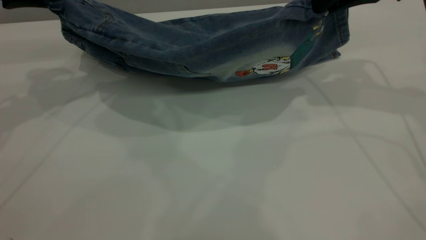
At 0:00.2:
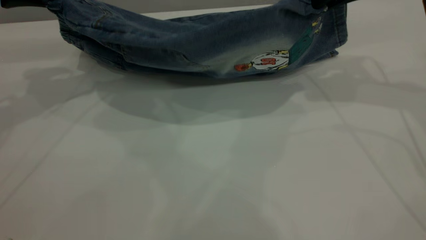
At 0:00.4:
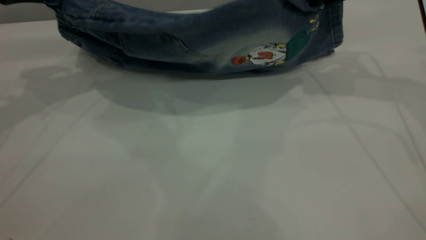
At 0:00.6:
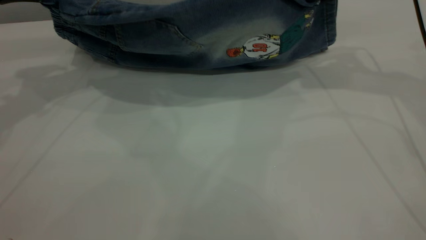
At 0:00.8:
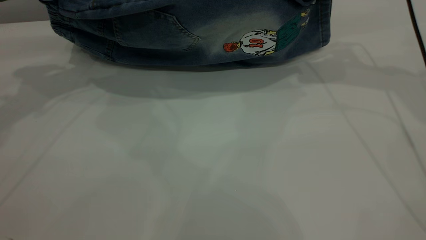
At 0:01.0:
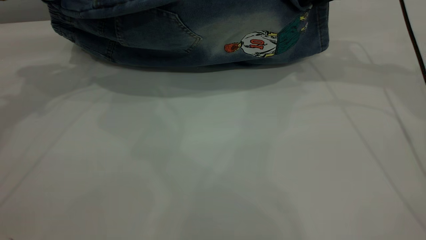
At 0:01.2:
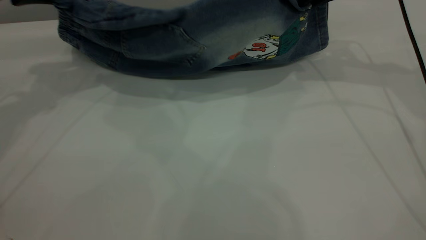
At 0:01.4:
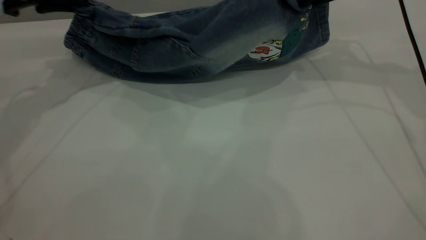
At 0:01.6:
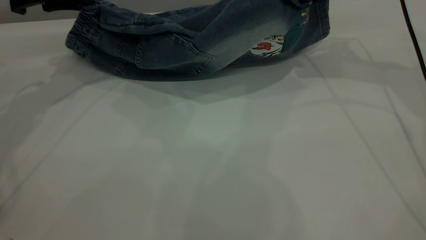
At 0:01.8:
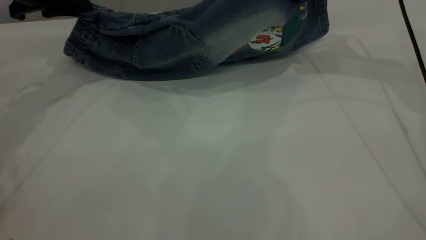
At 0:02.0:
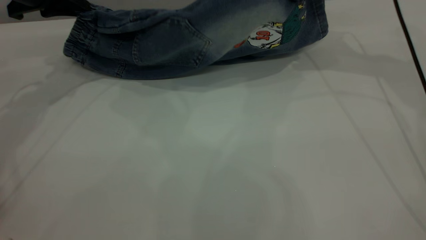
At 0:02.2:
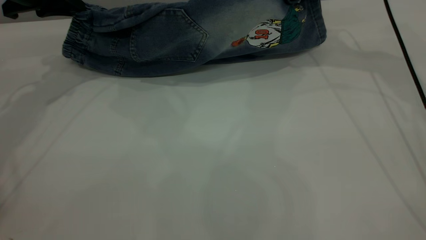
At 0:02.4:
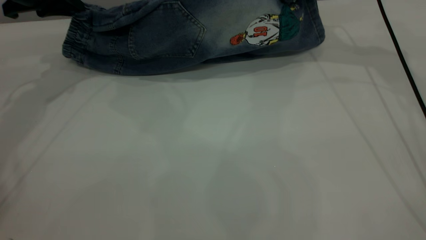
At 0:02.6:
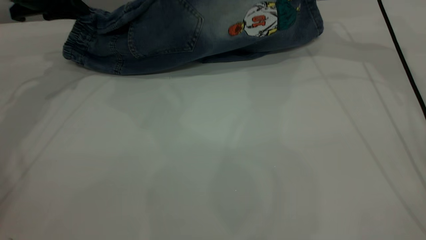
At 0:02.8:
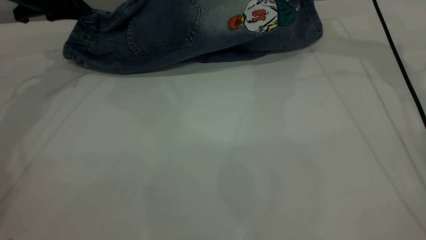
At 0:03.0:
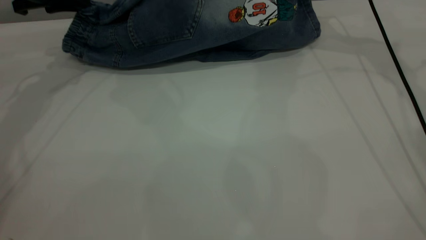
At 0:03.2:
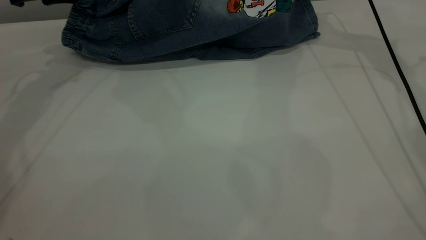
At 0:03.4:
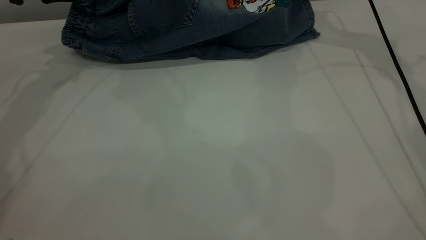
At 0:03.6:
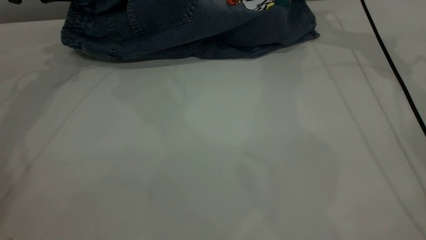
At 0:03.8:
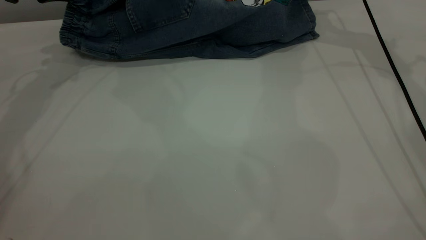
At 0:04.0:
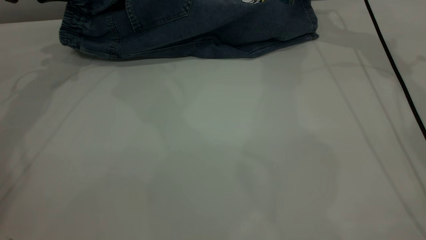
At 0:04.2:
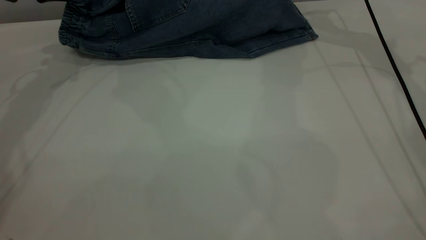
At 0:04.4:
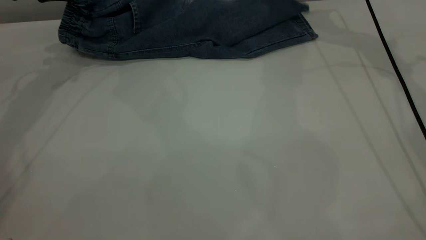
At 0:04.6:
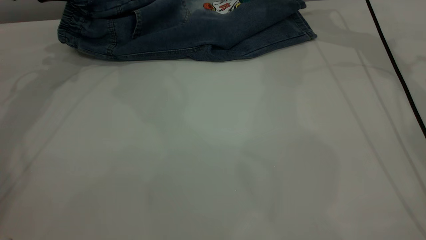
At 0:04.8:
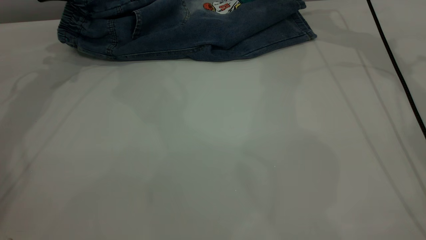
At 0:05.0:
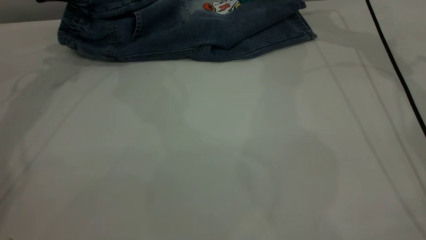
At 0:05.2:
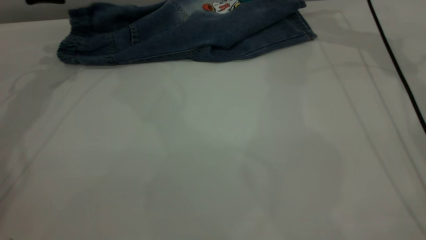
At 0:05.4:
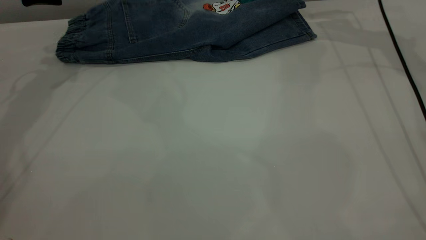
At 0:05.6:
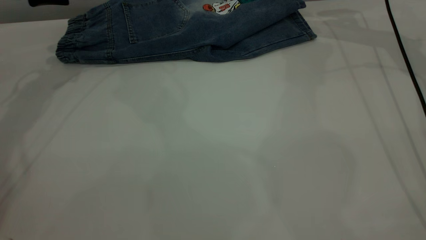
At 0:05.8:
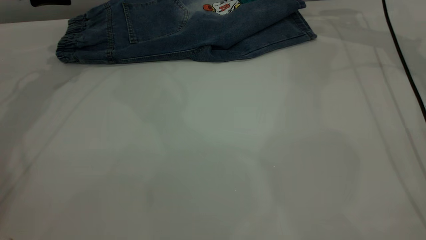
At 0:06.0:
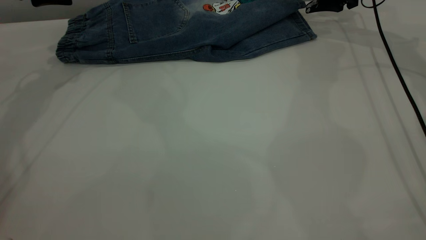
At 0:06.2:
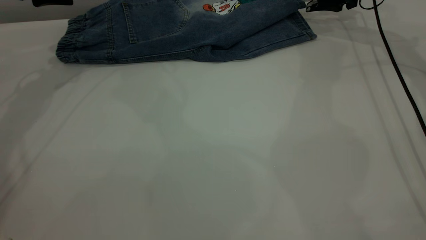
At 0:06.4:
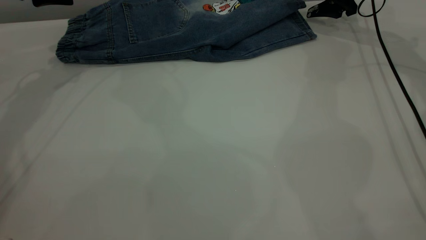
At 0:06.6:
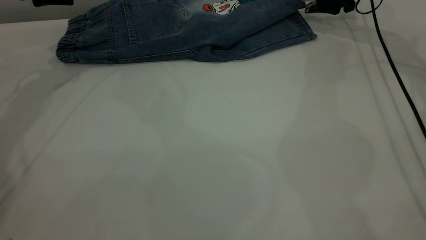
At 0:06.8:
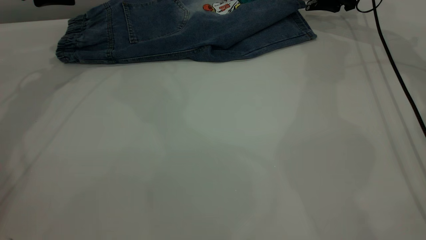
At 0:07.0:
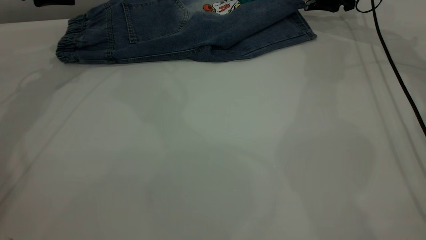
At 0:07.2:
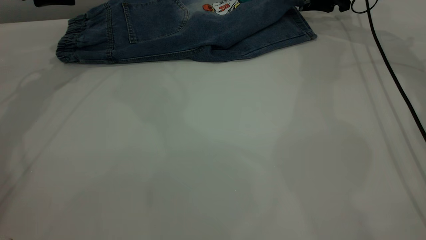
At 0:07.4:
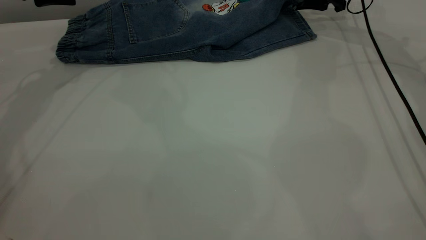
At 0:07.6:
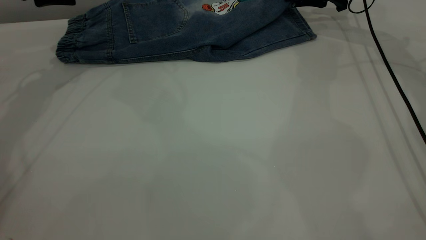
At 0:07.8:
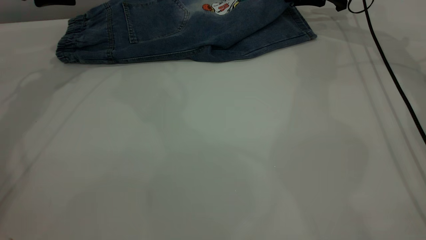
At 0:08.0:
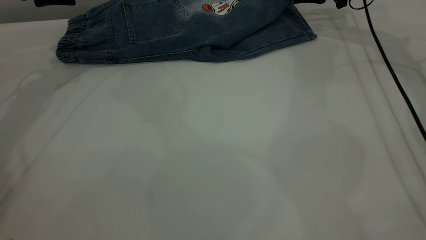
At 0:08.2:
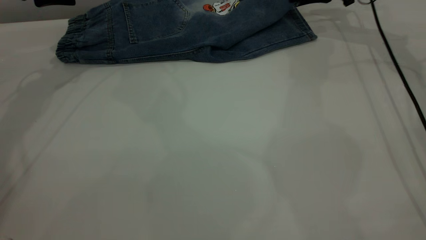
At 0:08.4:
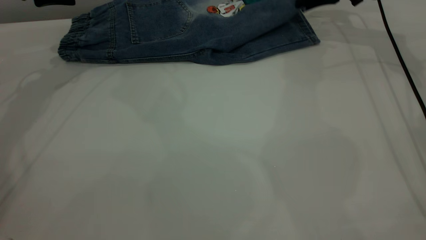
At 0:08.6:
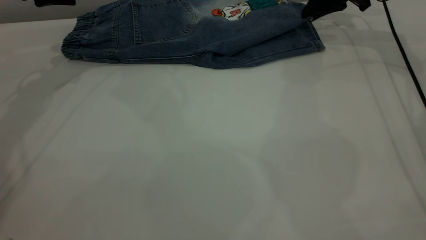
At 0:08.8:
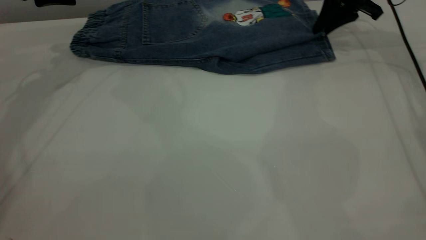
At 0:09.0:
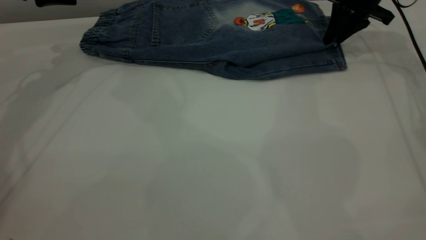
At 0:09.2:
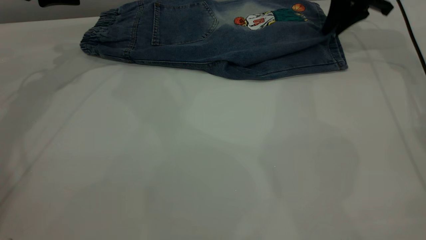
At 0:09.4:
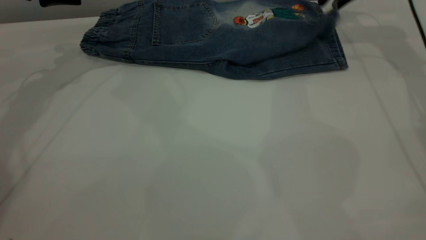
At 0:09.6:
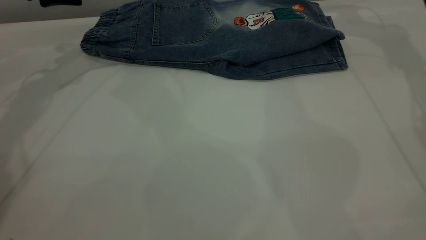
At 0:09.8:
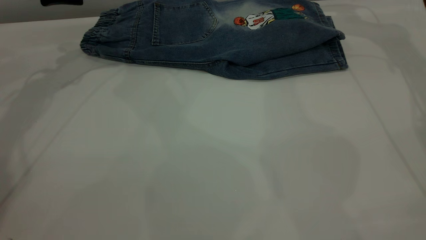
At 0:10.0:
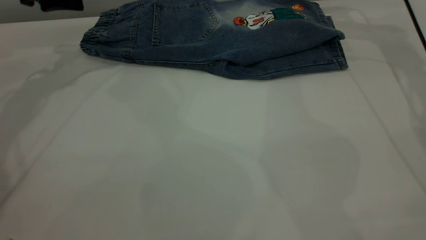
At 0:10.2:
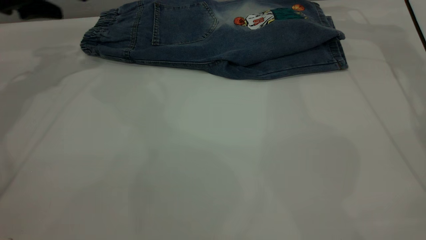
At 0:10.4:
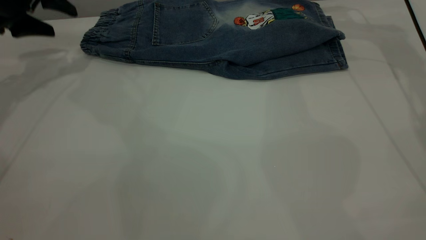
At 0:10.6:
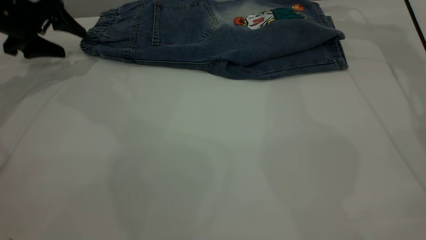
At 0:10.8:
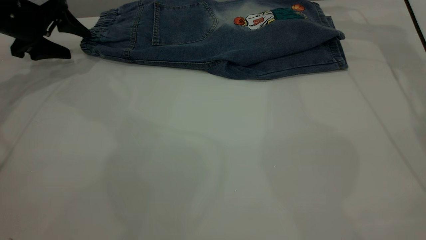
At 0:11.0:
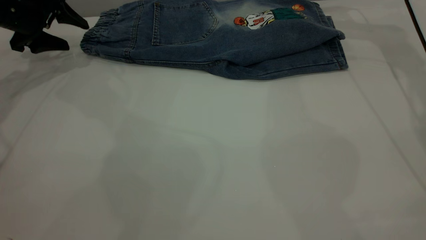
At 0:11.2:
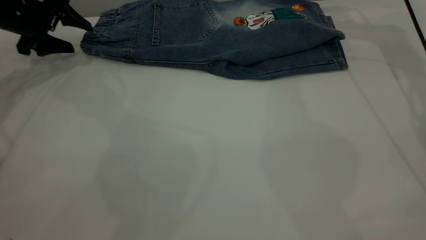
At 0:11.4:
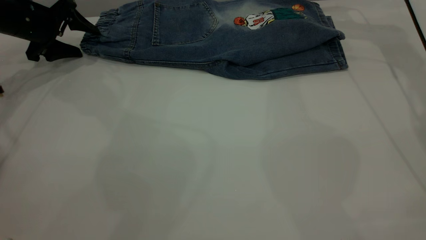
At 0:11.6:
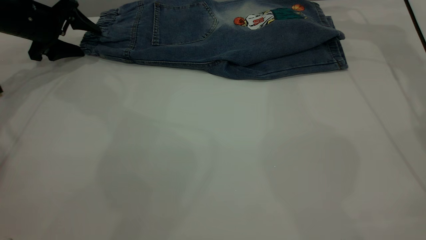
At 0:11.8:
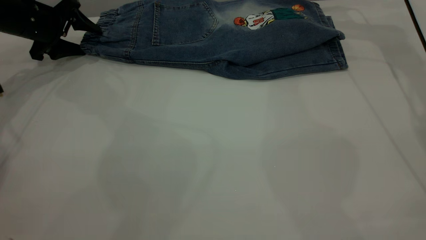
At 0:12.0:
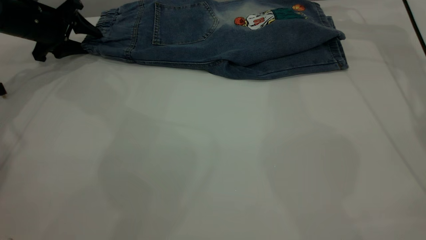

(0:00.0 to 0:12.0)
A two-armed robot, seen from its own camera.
Step, 0:00.0 - 0:09.8: Fold the bottom of the pants upward.
0:00.0 - 0:01.6: The right gripper heads forward, covering approximately 5 cm; the left gripper moves about 5 cm.
0:01.6 - 0:03.0: The right gripper travels forward by approximately 10 cm.
0:03.0 - 0:04.4: The right gripper opens.
0:04.4 - 0:06.0: The left gripper opens its fingers. The right gripper shifts by roughly 5 cm.
0:06.0 - 0:07.6: The right gripper closes up.
0:07.6 - 0:09.0: The right gripper shifts by approximately 5 cm.
0:09.0 - 0:10.4: The left gripper heads to the left, covering approximately 5 cm. Meanwhile the right gripper is displaced upward by about 10 cm, and opens.
0:10.4 - 0:12.0: The left gripper goes some 5 cm downward, and closes its fingers.

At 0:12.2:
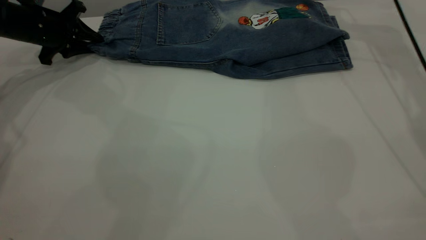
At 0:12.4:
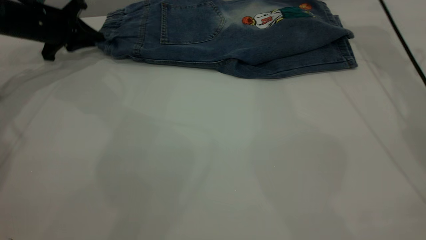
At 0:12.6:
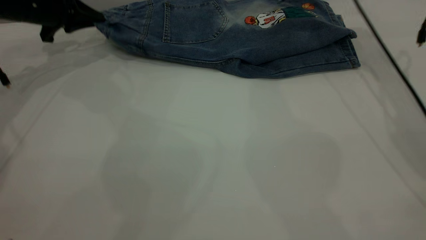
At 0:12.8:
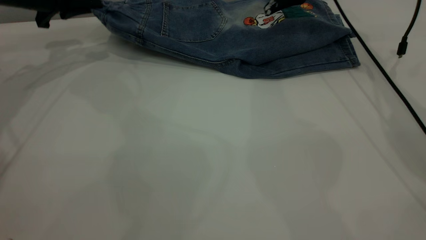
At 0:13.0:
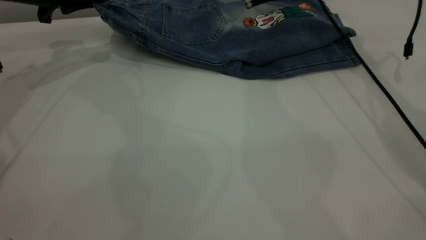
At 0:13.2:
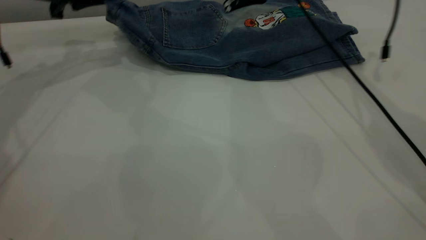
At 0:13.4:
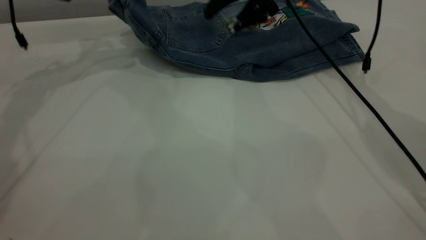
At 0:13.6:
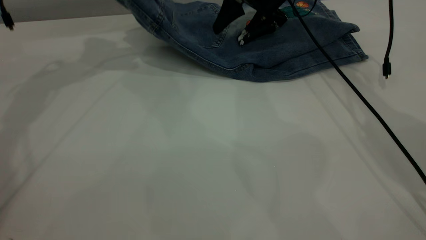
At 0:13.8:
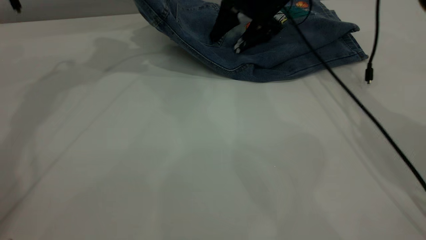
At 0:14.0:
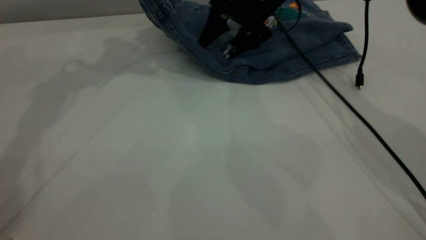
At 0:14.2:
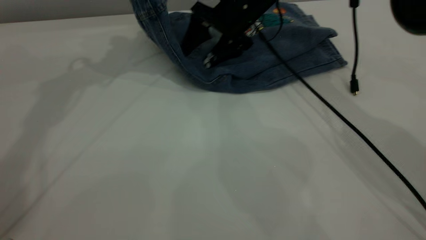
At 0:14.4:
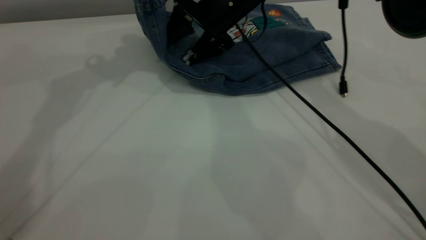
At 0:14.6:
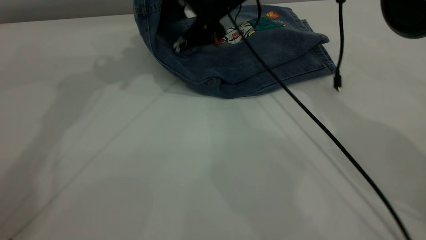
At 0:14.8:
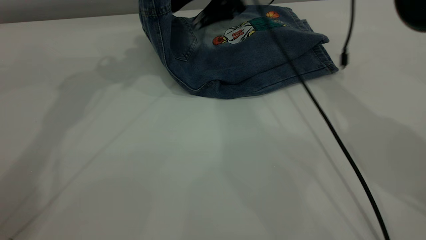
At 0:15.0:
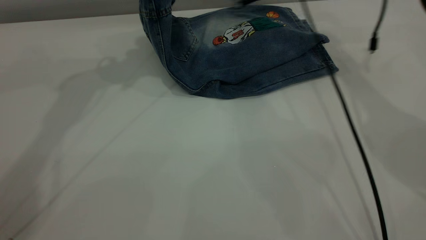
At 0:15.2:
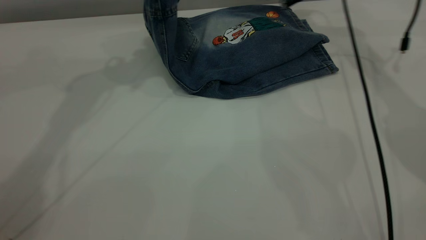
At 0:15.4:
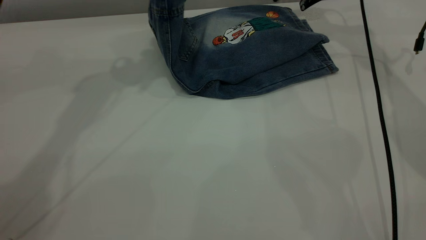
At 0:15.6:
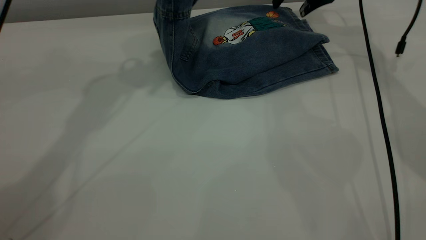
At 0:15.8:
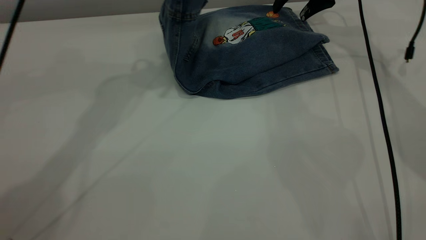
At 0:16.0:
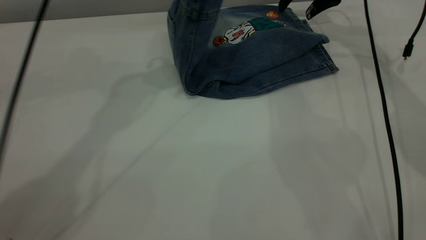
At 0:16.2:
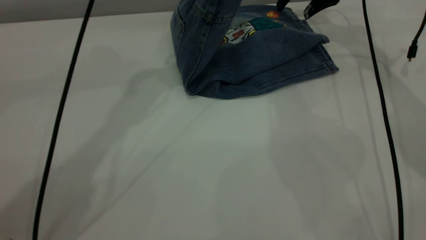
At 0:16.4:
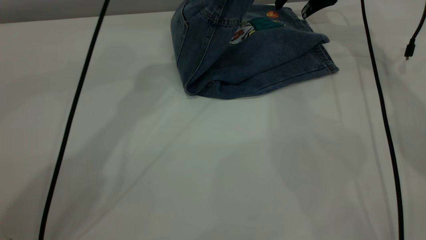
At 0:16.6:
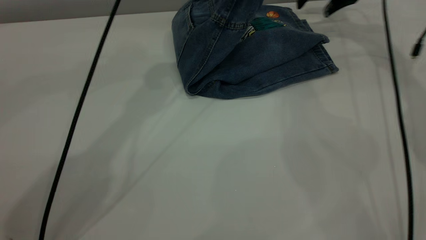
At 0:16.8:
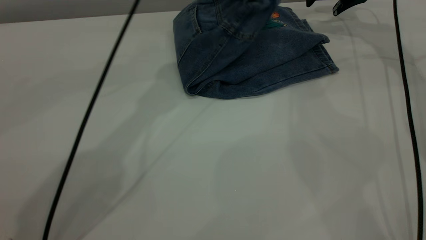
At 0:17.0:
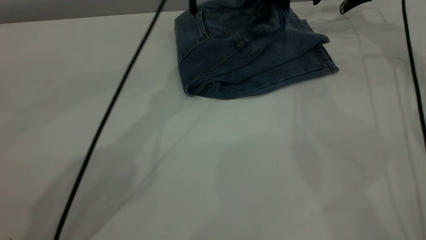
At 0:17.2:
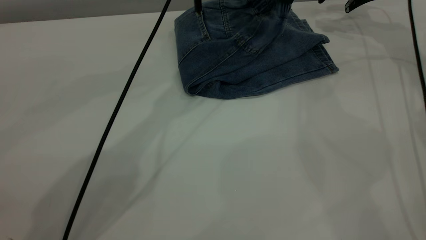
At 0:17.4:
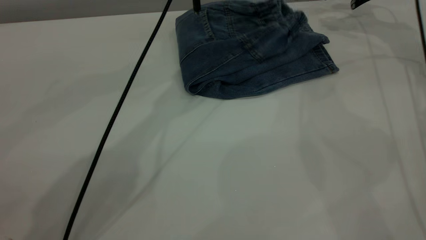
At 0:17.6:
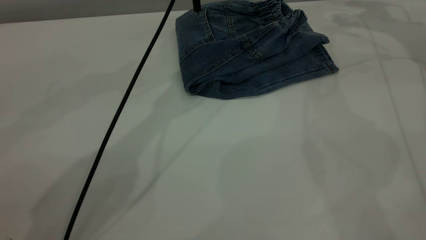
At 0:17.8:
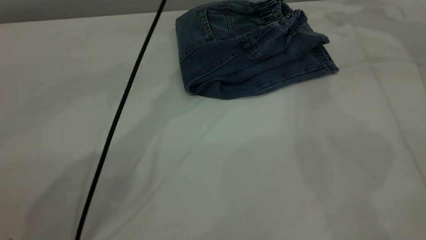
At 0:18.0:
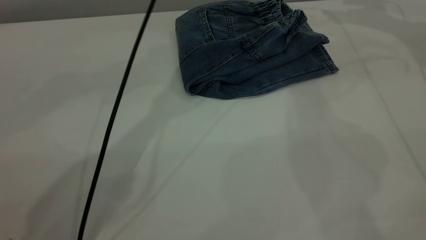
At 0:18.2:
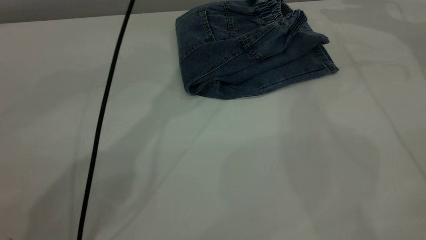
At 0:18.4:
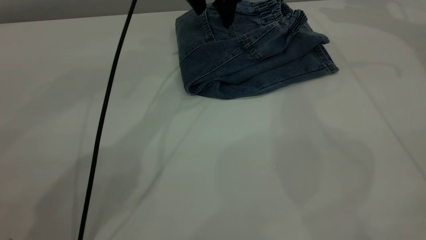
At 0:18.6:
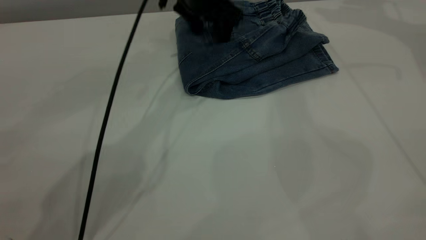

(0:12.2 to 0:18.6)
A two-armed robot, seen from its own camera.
Step, 0:12.2 - 0:17.8: Fold the pants from left to right.
0:12.2 - 0:13.8: The left gripper goes about 20 cm upward and to the right. Meanwhile the right gripper goes roughly 15 cm to the left and downward.
0:13.8 - 0:15.4: The left gripper is displaced to the right by about 10 cm. The right gripper heads to the right and upward, covering some 10 cm.
0:15.4 - 0:17.0: The right gripper moves to the right, about 5 cm. Meanwhile the left gripper moves to the right and downward, some 20 cm.
0:17.0 - 0:18.6: The right gripper goes some 15 cm upward. Meanwhile the left gripper ends up roughly 5 cm from where it was, and opens.
